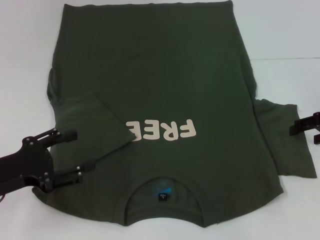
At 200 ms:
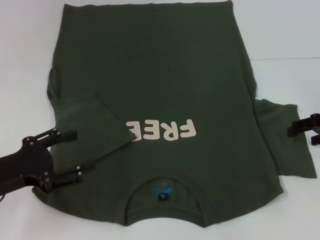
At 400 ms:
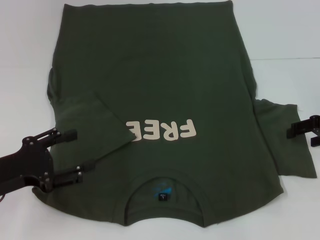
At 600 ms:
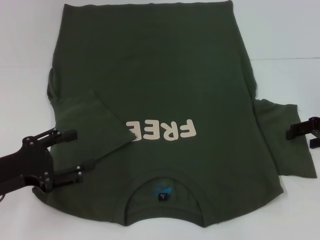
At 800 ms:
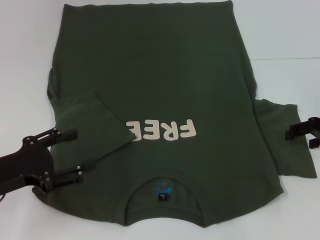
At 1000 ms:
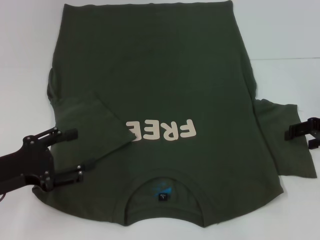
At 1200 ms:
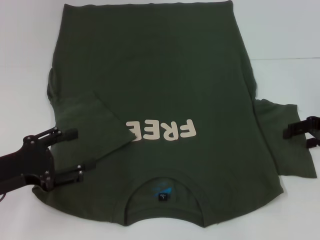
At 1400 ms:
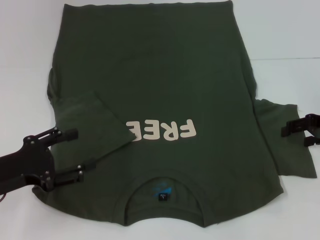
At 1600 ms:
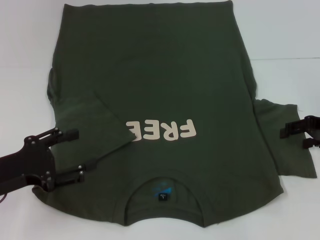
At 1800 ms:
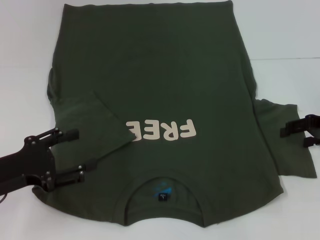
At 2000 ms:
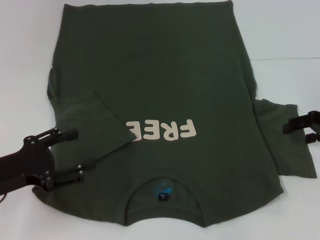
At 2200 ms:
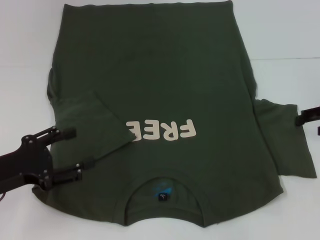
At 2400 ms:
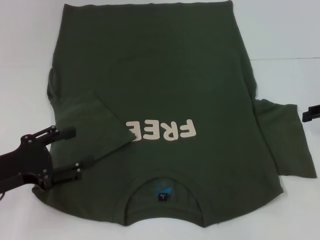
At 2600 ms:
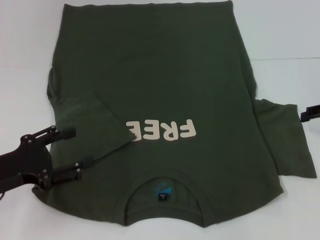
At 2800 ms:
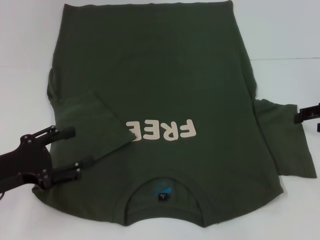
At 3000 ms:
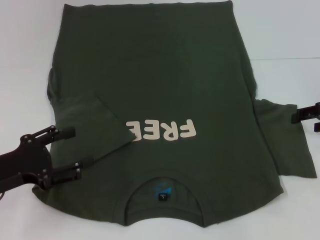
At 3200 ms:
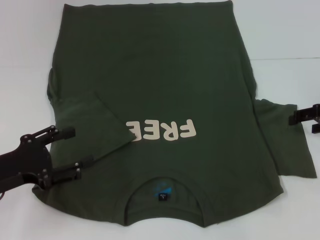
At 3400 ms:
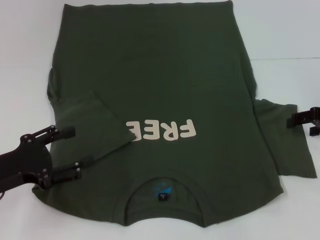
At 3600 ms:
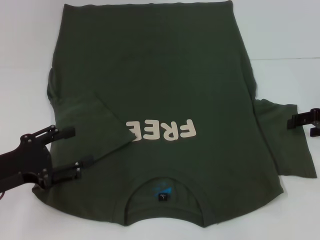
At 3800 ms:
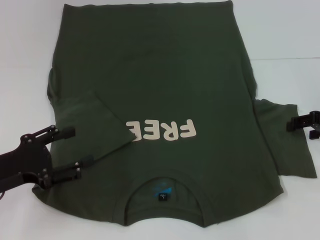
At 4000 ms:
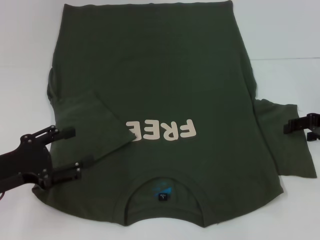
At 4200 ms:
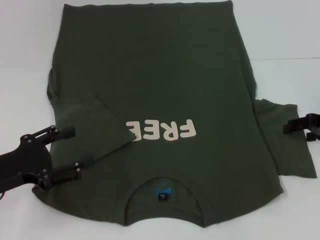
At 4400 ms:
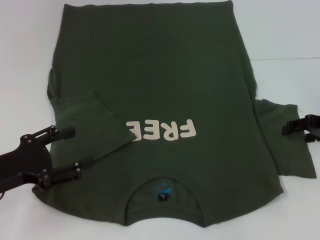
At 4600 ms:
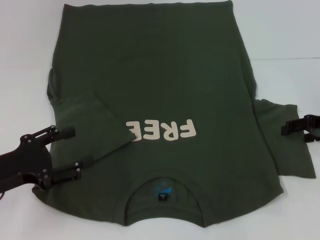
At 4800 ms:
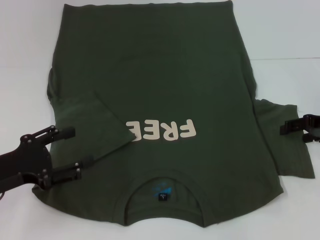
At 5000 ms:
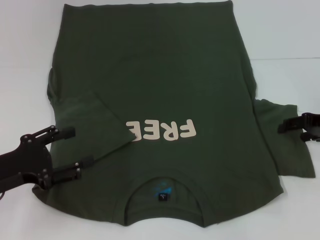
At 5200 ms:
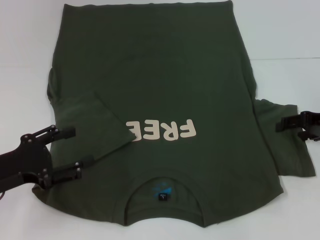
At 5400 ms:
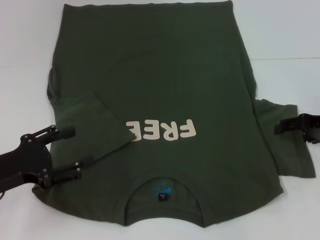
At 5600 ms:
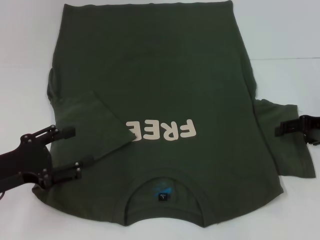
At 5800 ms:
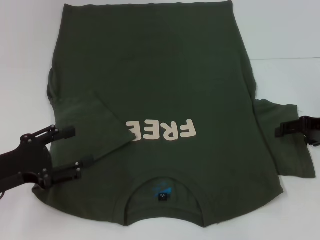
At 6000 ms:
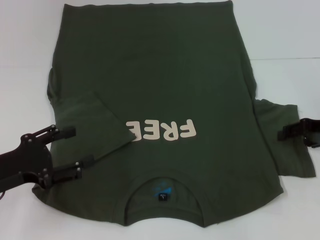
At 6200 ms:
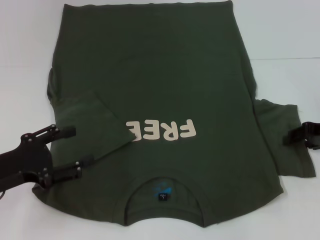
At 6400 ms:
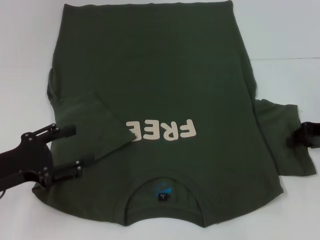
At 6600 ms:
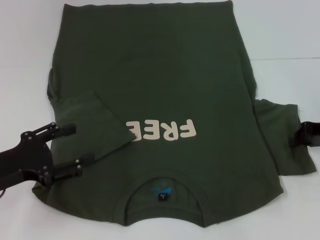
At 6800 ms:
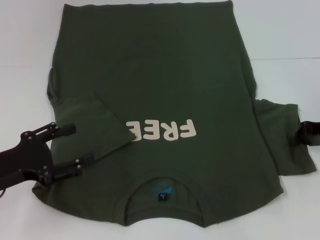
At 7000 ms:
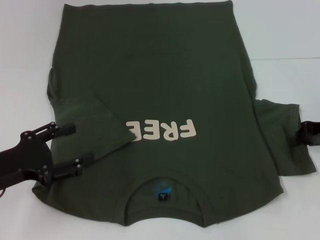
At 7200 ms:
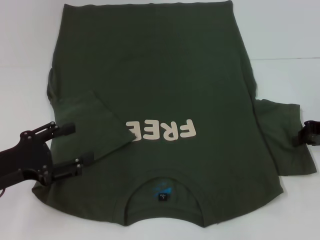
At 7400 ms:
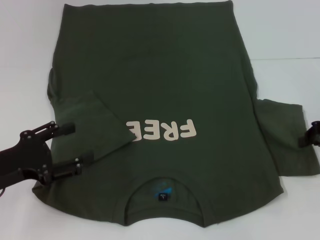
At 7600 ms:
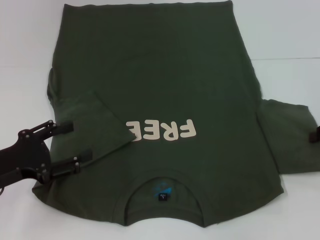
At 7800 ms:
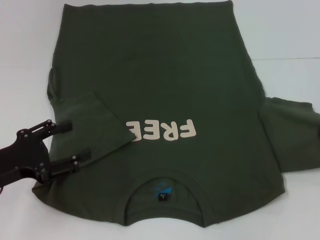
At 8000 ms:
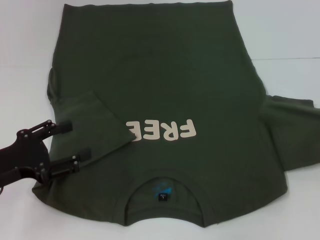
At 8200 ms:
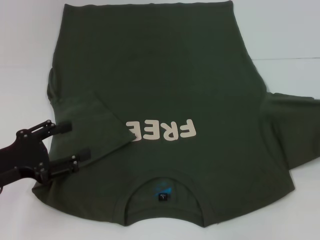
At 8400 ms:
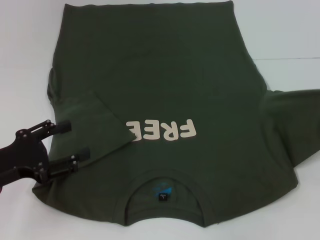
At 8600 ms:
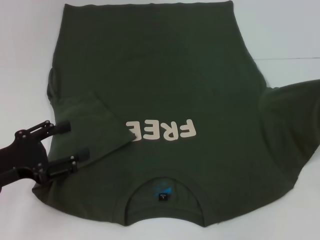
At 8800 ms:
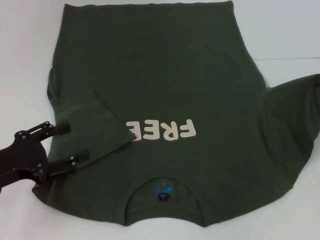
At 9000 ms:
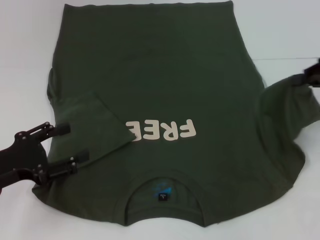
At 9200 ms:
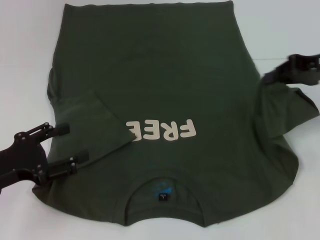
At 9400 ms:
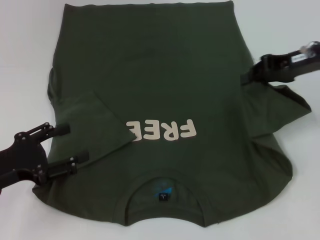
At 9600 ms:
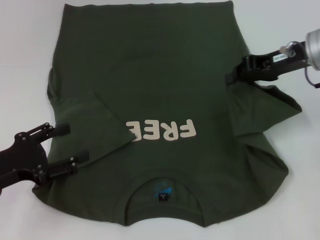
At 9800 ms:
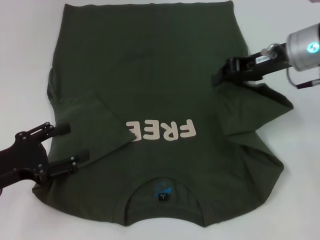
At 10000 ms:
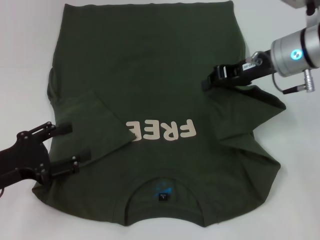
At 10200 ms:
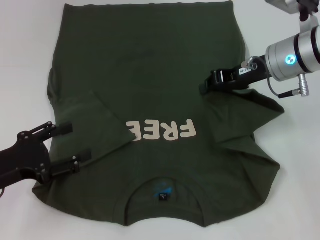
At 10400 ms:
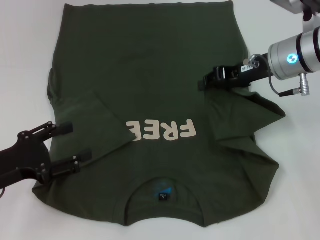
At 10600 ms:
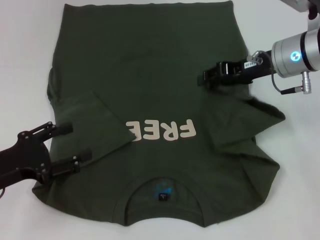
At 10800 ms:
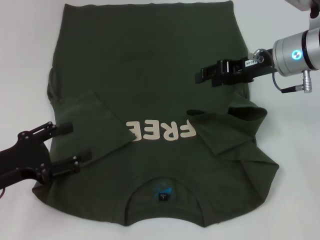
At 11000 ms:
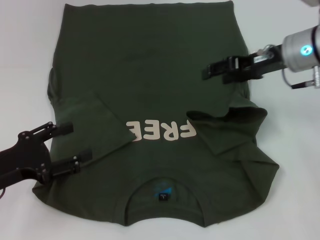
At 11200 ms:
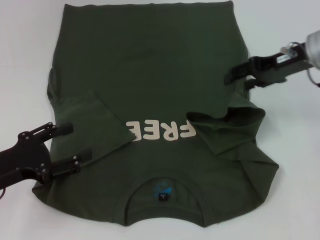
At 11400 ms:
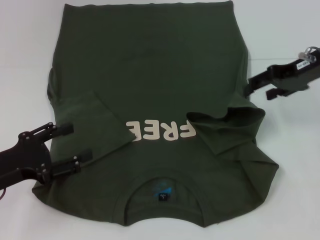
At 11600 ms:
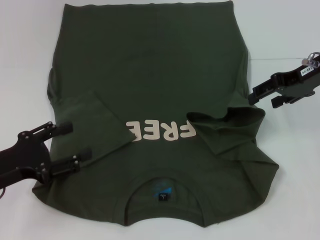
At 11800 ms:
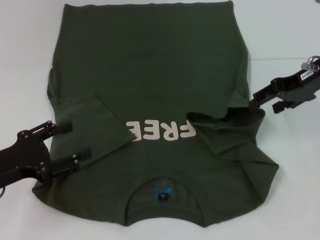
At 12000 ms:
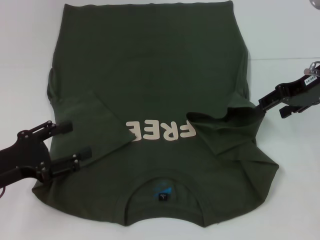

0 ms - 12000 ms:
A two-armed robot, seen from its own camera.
0 ms - 1600 ms: Both grippers stay put.
1600 ms - 4400 ms: The grippers make only small movements.
6000 ms - 7600 ms: The right gripper closes up.
7600 ms - 9000 ms: The right gripper shifts approximately 5 cm upward.
9000 ms - 10400 ms: The right gripper moves to the left, some 15 cm.
10400 ms - 12000 ms: The right gripper goes some 5 cm to the right, and opens.

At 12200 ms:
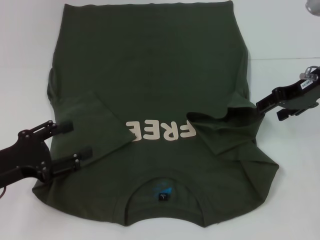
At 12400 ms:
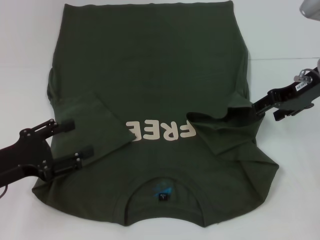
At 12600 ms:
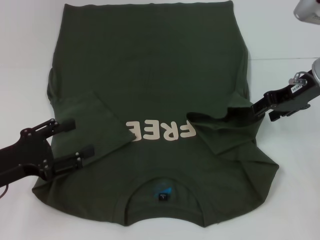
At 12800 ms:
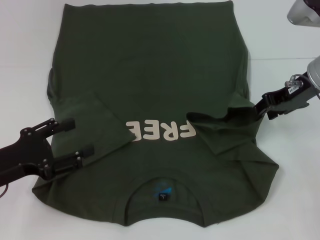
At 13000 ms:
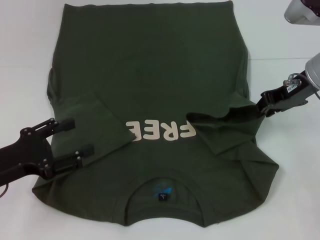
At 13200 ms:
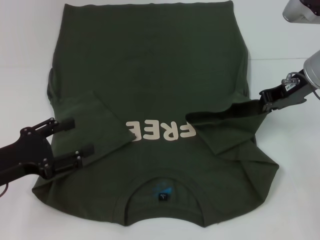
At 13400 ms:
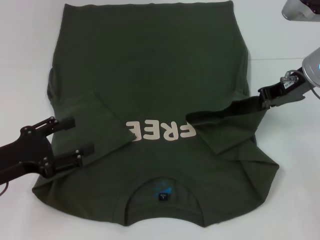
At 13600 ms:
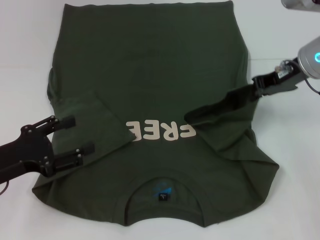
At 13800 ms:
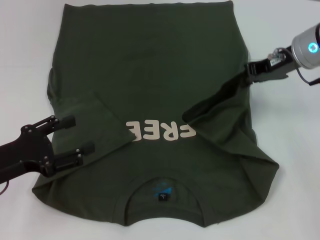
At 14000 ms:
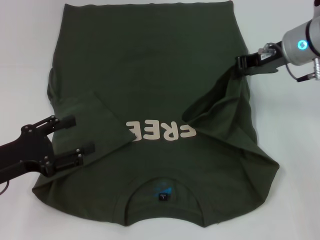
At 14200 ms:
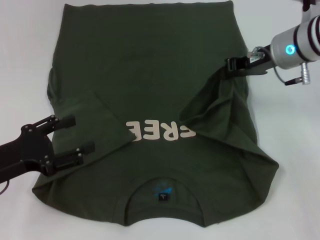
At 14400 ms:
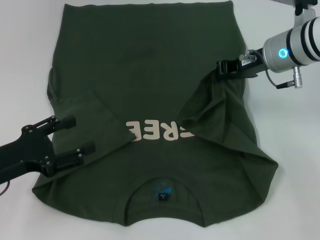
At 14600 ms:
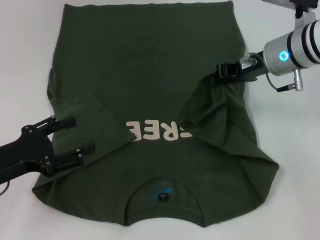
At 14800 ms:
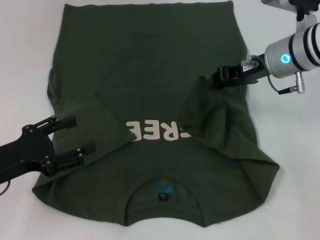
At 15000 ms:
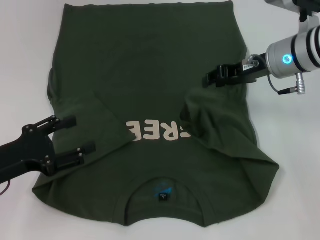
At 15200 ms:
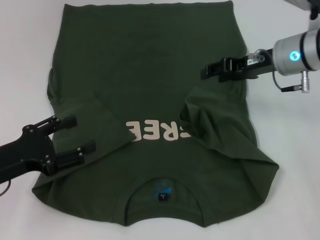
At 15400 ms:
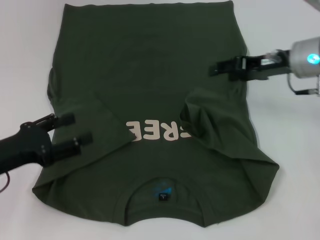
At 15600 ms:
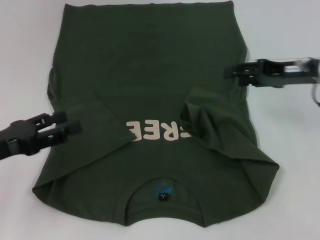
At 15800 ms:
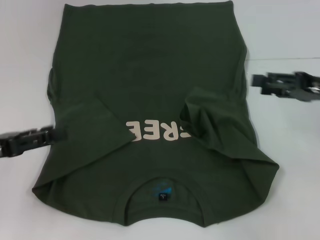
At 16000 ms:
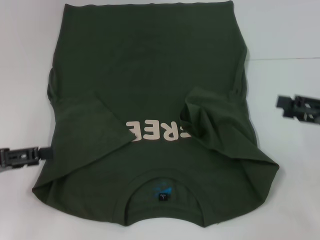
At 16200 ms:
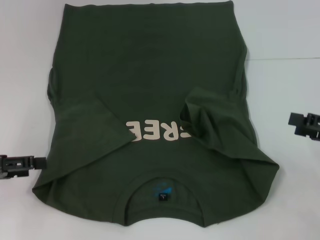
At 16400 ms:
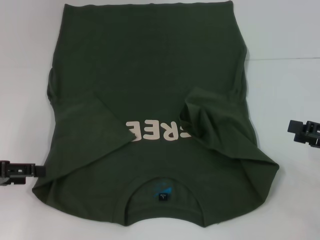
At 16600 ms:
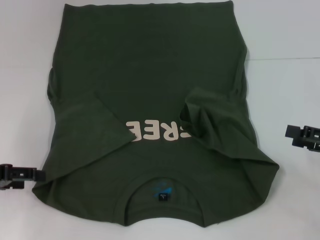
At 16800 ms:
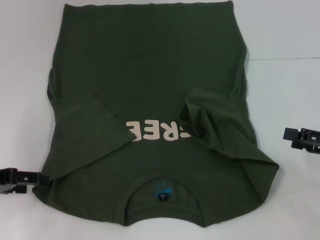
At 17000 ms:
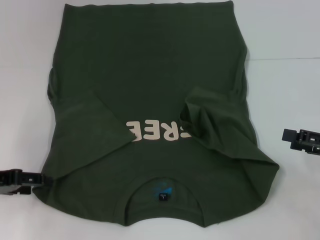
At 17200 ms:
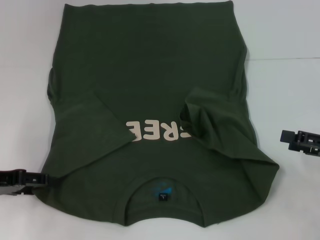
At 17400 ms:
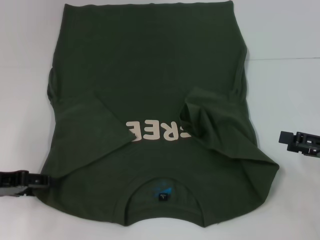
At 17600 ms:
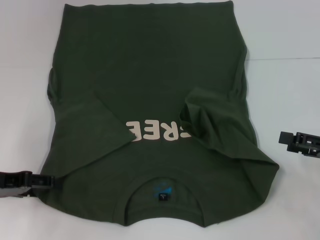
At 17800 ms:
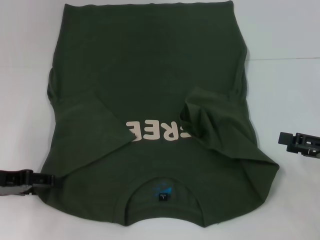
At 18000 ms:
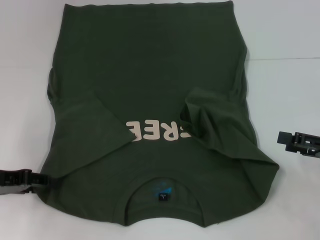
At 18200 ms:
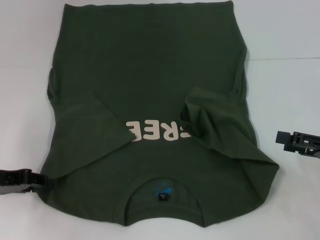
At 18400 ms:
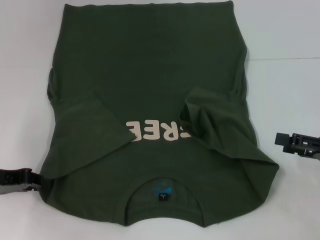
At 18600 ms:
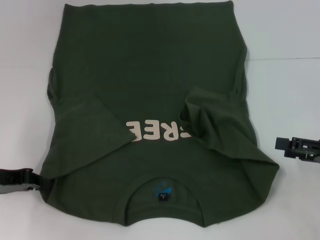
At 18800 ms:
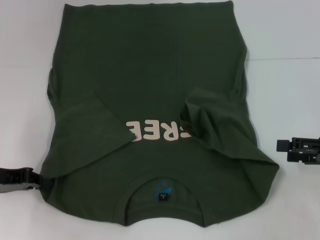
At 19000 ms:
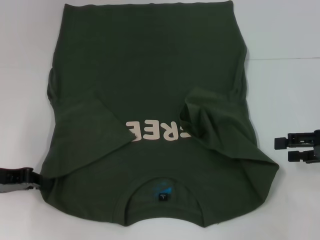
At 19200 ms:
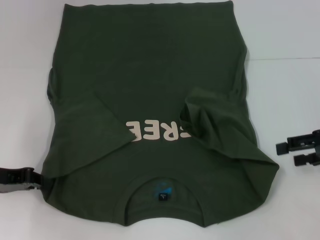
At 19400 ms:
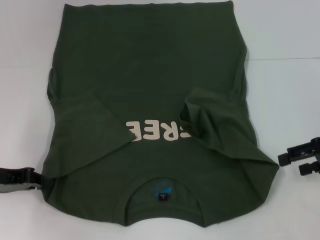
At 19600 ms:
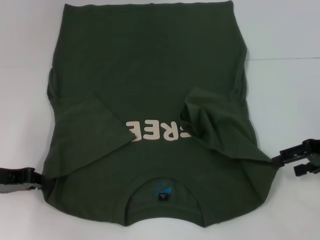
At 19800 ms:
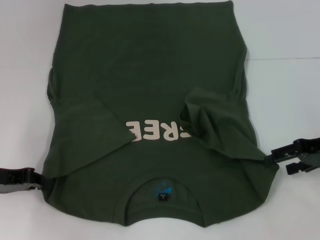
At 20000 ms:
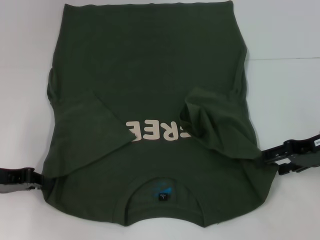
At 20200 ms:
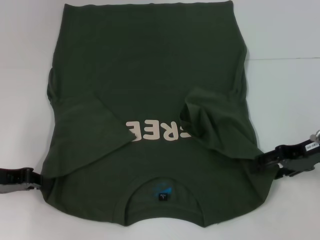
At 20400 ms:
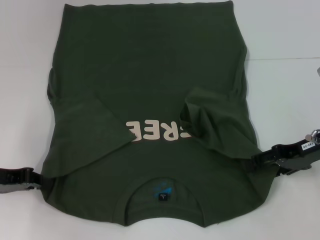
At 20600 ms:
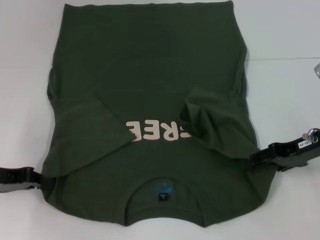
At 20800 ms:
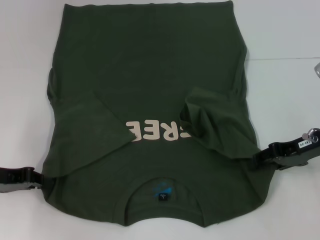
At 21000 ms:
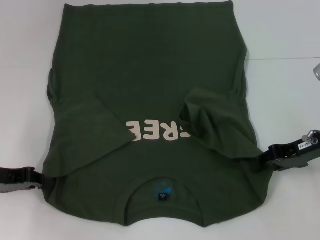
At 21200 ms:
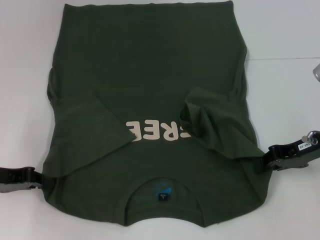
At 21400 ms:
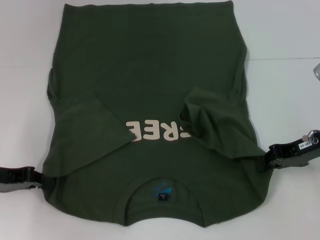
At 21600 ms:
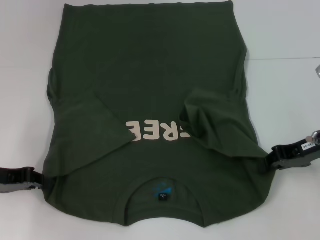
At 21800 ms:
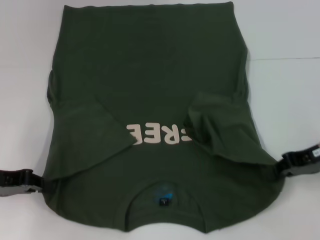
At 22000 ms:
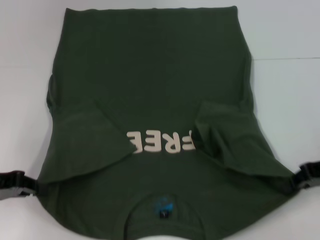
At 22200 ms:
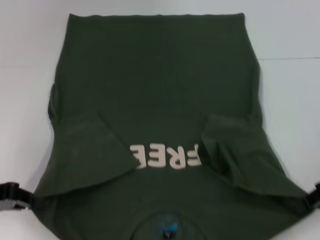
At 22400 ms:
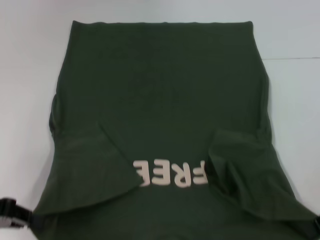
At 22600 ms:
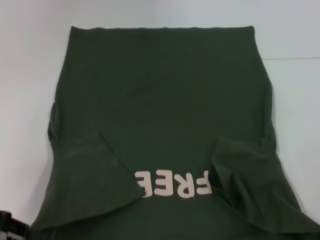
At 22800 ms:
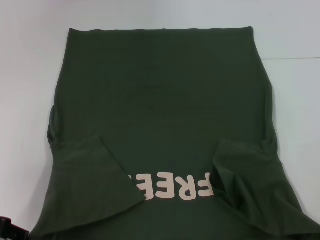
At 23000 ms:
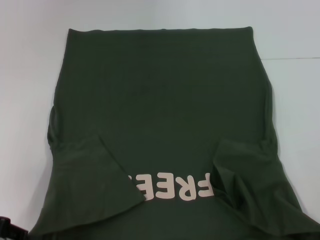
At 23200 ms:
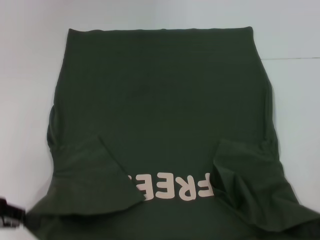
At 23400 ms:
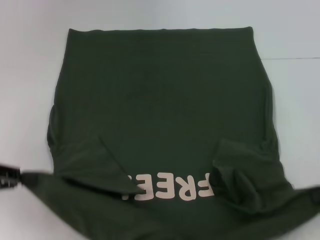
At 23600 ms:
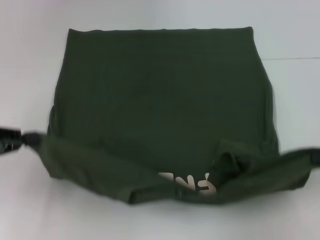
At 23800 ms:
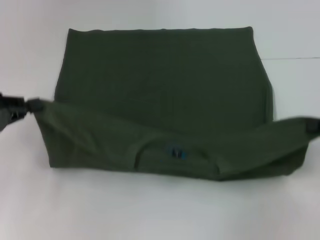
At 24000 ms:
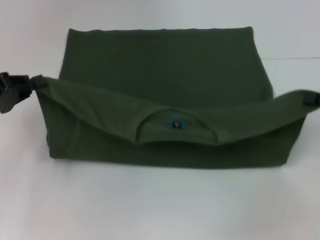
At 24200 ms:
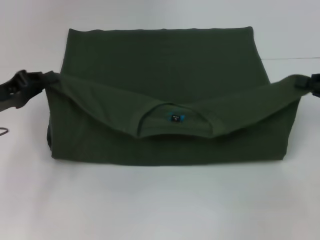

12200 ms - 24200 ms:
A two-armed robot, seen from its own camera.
Step, 12200 ms - 15000 ms: Fold the bottom right sleeve with your right hand.
Step, 15200 ms - 18600 ms: Grab the bottom left corner with your left hand.
Step, 18800 ms - 21200 ms: Grab the bottom right corner with your right hand.
12200 ms - 13800 ms: The right gripper closes.
13800 ms - 15200 ms: The right gripper opens up.
15200 ms - 16600 ms: The left gripper travels to the left by about 5 cm, while the right gripper shifts about 25 cm backward, to the right and downward, and opens its fingers.
16600 ms - 18200 ms: The grippers stay close to where they were, moving slightly.
18200 ms - 19800 ms: The right gripper heads forward, covering roughly 5 cm.
19800 ms - 21200 ms: The right gripper closes up.
21200 ms - 22600 ms: The left gripper goes some 5 cm backward; the right gripper shifts roughly 10 cm backward and to the right.
22600 ms - 24200 ms: Both grippers move forward, some 10 cm.
